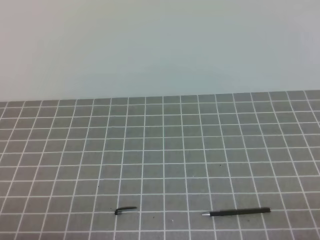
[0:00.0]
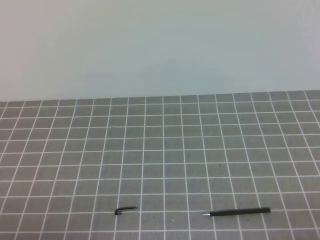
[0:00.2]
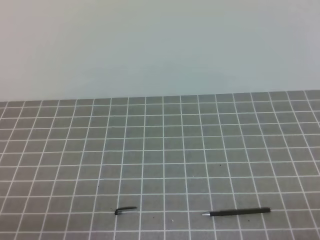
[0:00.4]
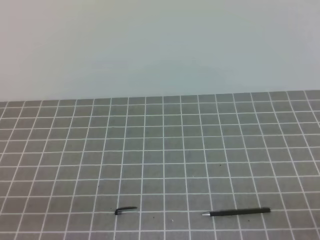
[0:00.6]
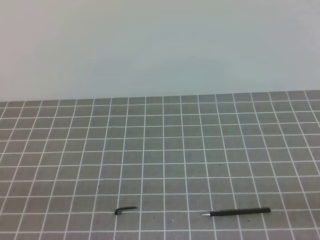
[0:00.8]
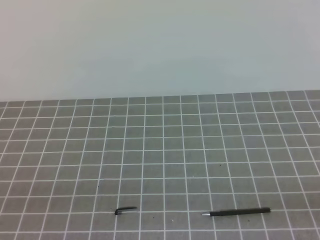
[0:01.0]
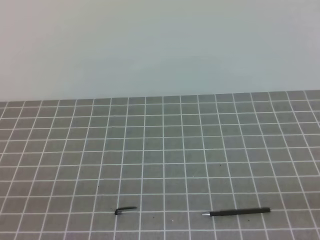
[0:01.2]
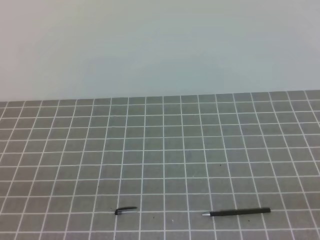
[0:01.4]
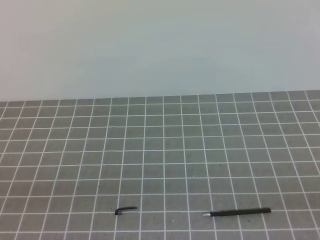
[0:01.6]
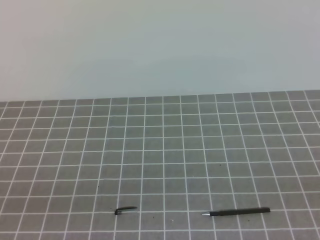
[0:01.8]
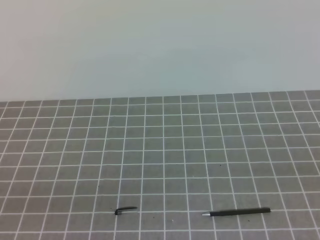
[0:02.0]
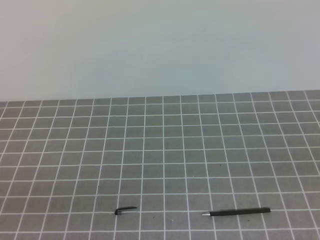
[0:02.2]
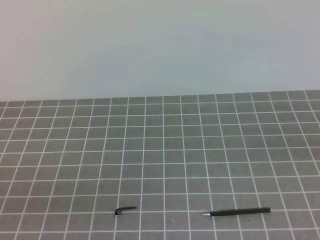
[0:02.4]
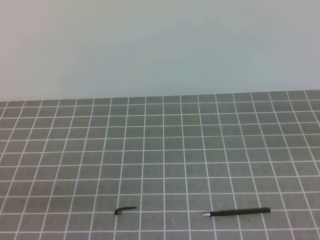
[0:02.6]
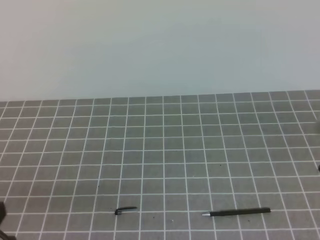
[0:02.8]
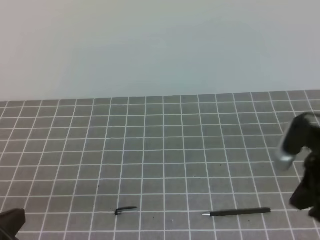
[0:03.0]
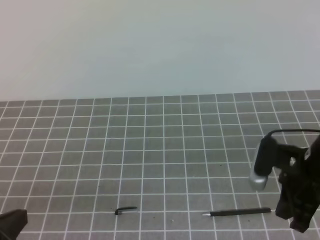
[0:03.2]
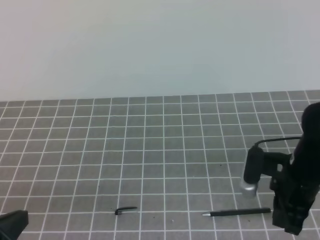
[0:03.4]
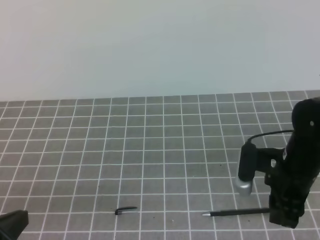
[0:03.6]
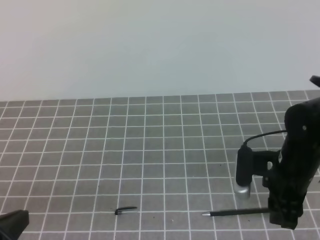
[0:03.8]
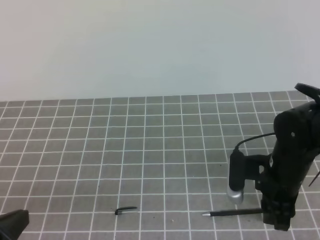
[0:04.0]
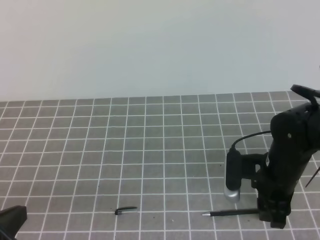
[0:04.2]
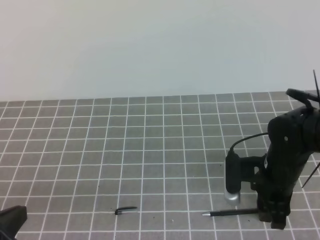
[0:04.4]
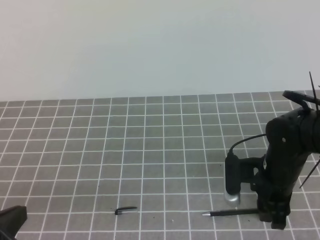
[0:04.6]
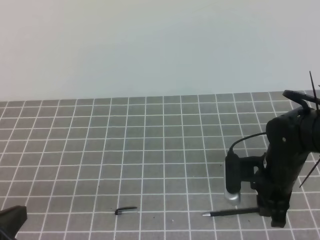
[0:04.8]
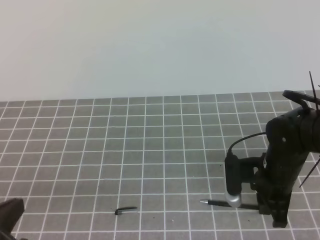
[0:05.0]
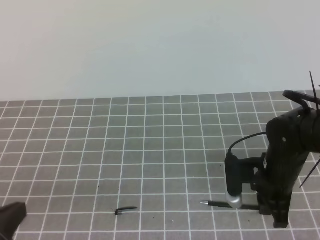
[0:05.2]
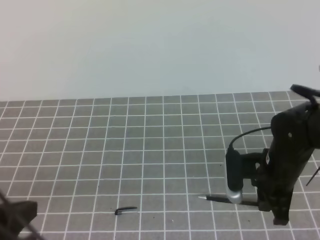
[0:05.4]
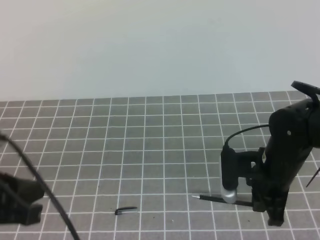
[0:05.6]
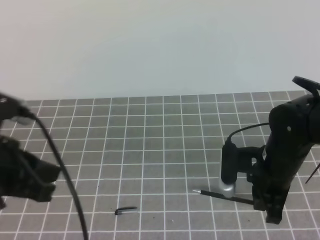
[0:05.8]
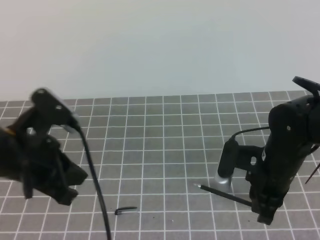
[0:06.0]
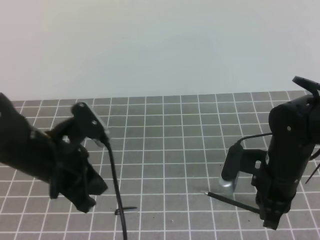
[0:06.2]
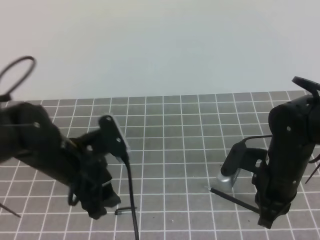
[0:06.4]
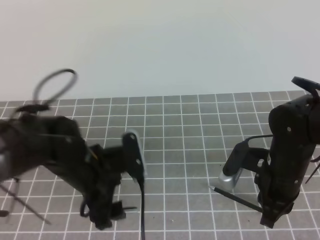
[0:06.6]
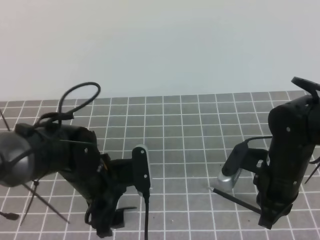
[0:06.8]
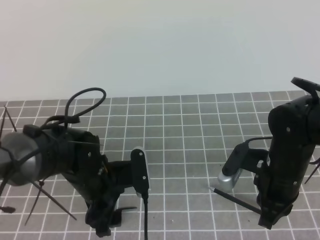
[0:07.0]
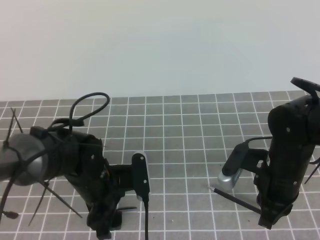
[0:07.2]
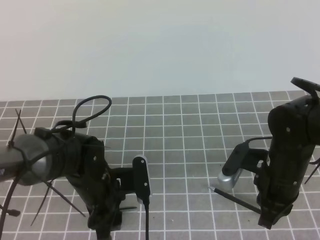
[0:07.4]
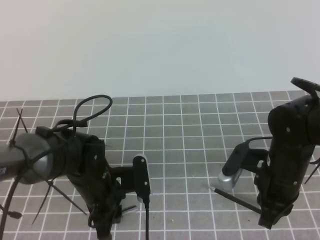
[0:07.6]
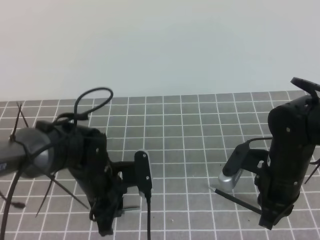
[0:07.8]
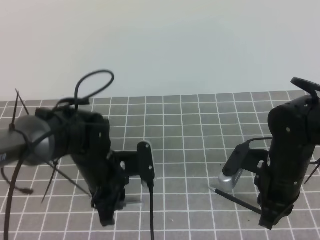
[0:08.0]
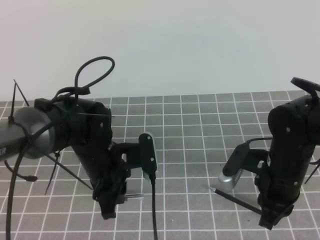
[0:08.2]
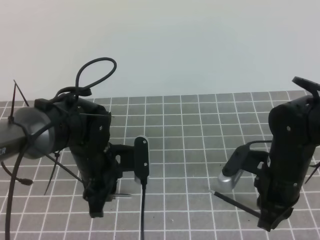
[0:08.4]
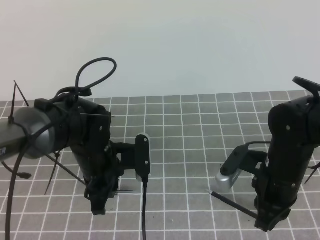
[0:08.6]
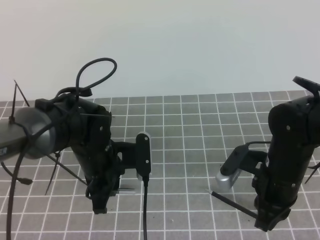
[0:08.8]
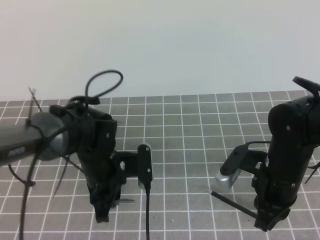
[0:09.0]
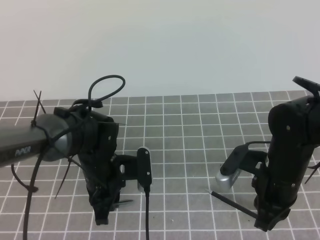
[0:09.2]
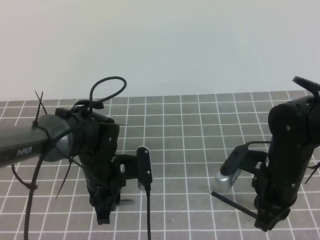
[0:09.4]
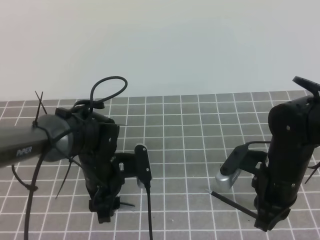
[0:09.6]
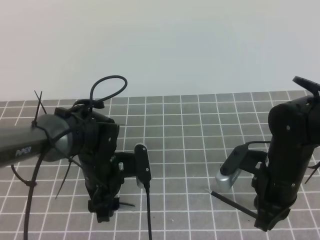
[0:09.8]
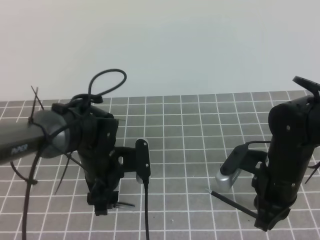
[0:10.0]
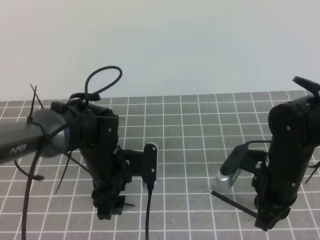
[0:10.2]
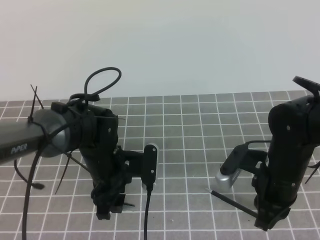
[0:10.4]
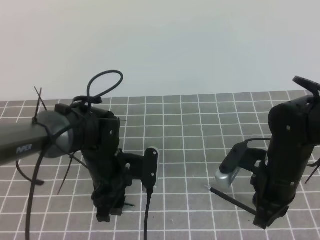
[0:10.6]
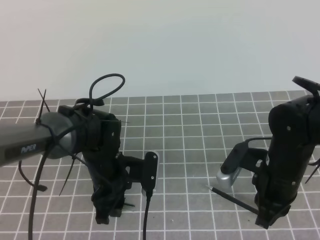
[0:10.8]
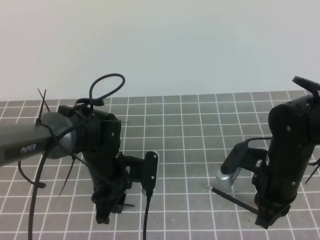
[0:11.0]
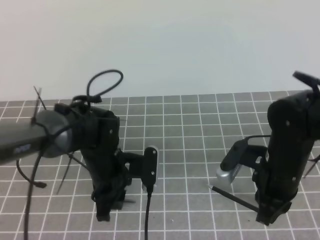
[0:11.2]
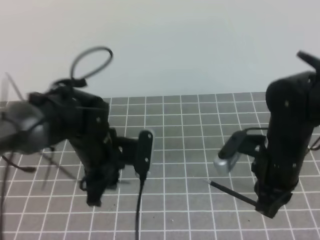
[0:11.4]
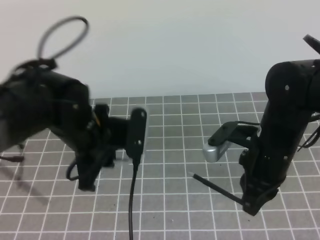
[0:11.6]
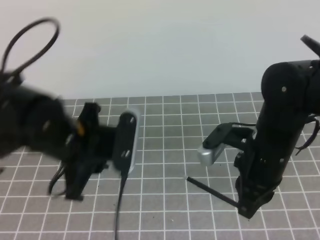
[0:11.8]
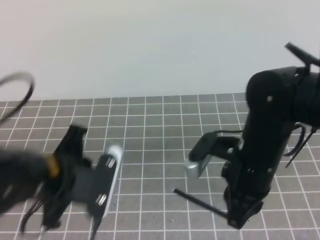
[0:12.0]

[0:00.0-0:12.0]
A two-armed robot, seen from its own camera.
Task of the whole recording: on the grey tablecloth, hold the pen cap in one hand and the pen in the other, then cover the pen cap.
0:01.6 to 0:03.0: The left gripper heads forward, covering approximately 5 cm. Meanwhile the right gripper shifts roughly 25 cm forward.
0:03.0 to 0:04.4: The right gripper goes approximately 10 cm downward and to the left, and opens.
0:04.4 to 0:06.0: The right gripper closes up. Meanwhile the left gripper goes about 10 cm forward.
0:06.0 to 0:07.6: The left gripper heads downward and to the right, covering roughly 15 cm, and opens up.
0:07.6 to 0:09.0: The grippers make only small movements.
0:09.0 to 0:10.4: The left gripper opens up.
0:10.4 to 0:12.0: The right gripper travels upward by some 5 cm. The left gripper moves upward, backward and to the left, approximately 15 cm, and closes up.

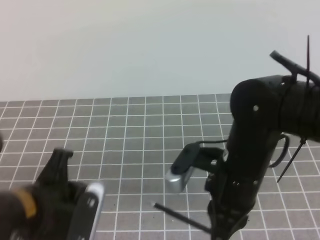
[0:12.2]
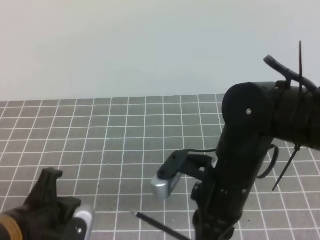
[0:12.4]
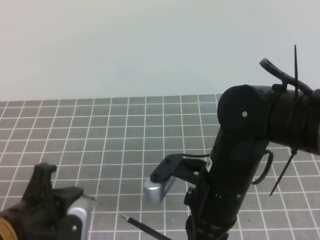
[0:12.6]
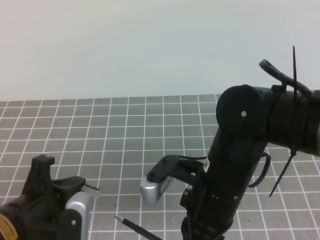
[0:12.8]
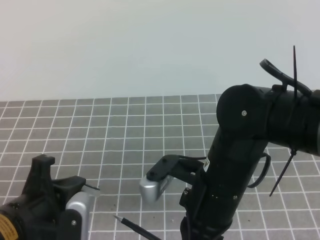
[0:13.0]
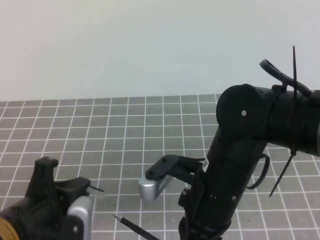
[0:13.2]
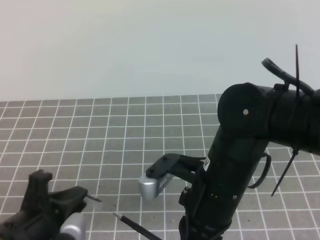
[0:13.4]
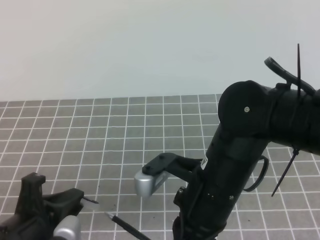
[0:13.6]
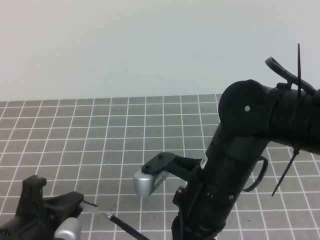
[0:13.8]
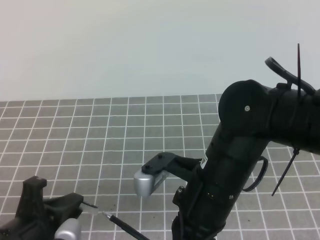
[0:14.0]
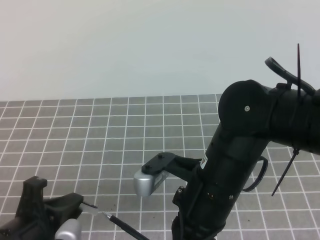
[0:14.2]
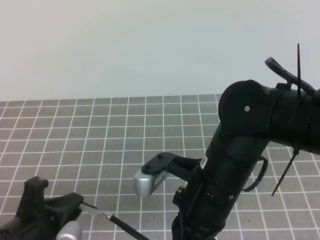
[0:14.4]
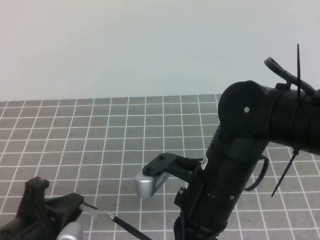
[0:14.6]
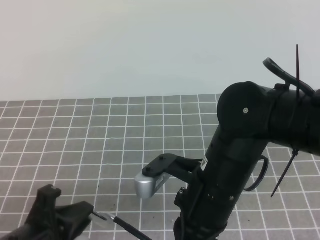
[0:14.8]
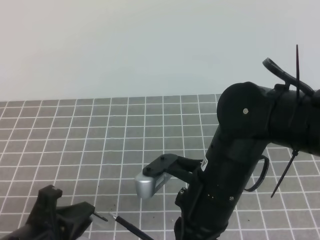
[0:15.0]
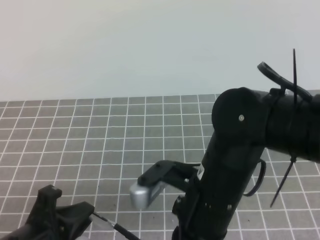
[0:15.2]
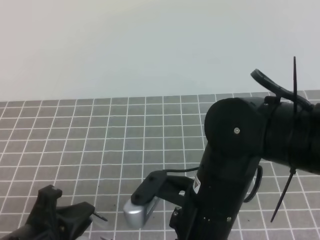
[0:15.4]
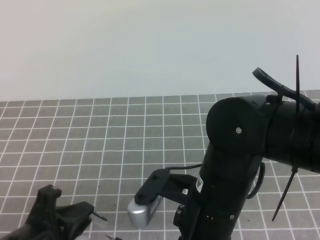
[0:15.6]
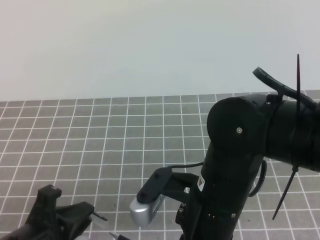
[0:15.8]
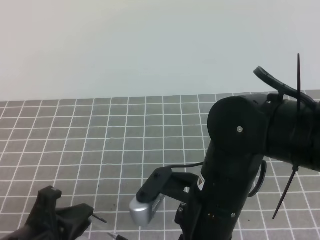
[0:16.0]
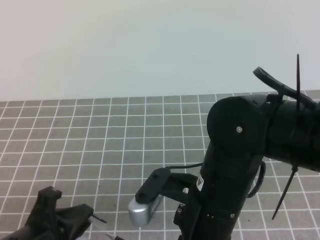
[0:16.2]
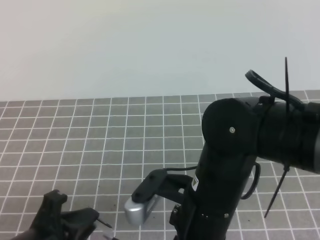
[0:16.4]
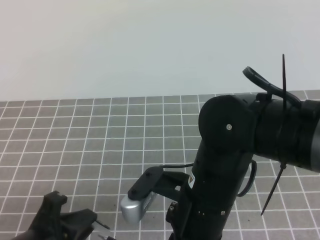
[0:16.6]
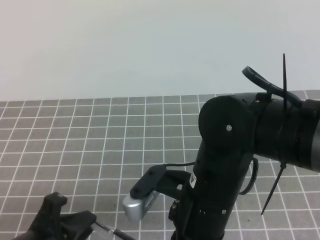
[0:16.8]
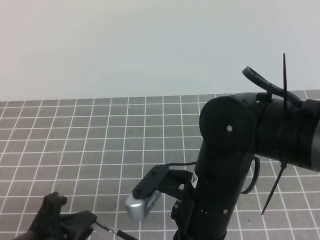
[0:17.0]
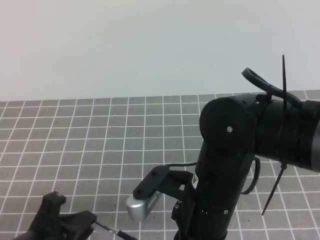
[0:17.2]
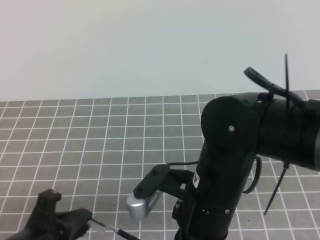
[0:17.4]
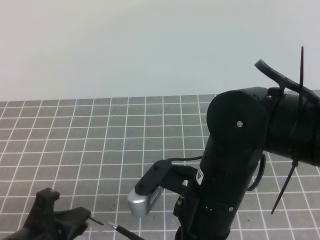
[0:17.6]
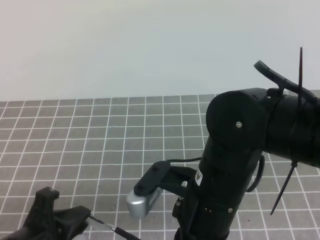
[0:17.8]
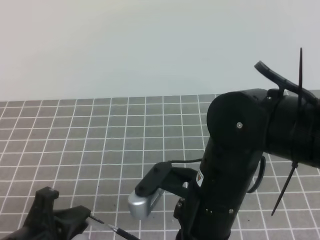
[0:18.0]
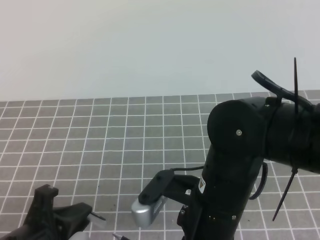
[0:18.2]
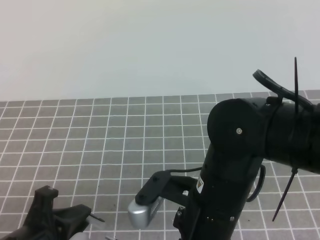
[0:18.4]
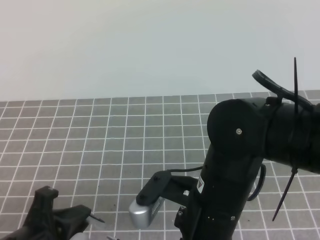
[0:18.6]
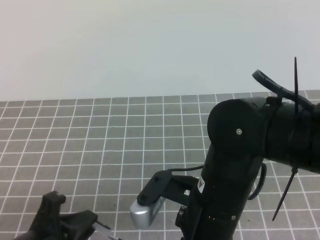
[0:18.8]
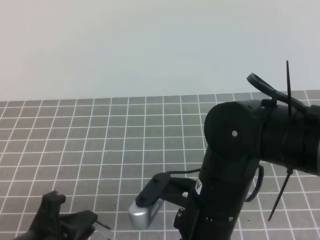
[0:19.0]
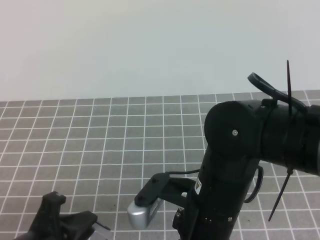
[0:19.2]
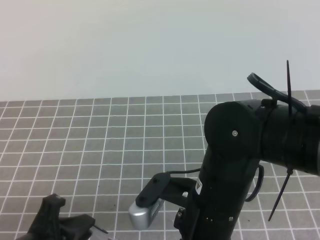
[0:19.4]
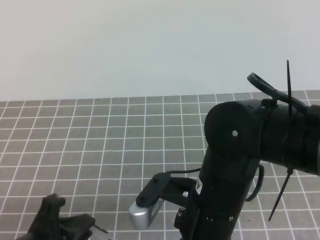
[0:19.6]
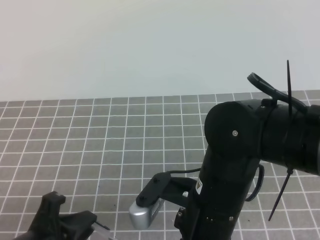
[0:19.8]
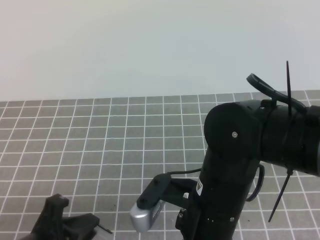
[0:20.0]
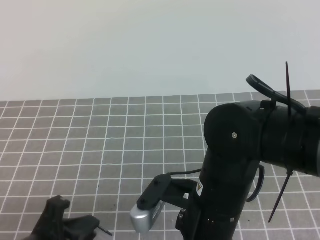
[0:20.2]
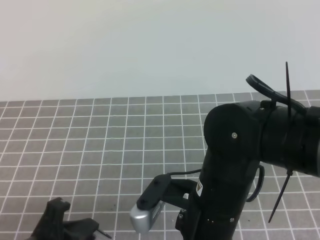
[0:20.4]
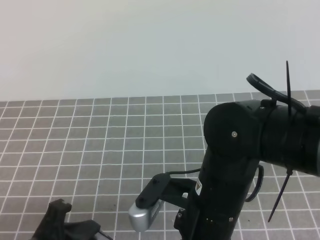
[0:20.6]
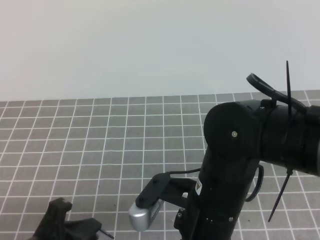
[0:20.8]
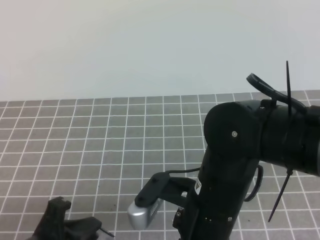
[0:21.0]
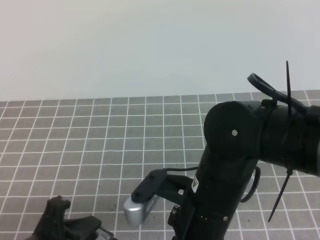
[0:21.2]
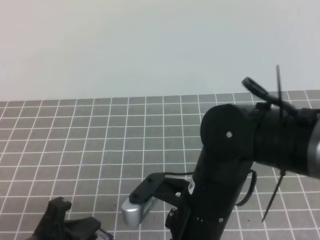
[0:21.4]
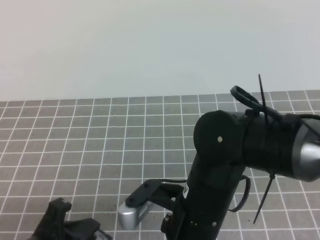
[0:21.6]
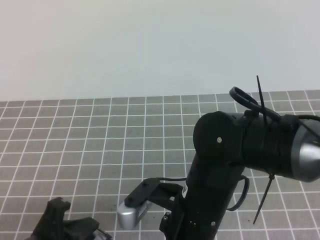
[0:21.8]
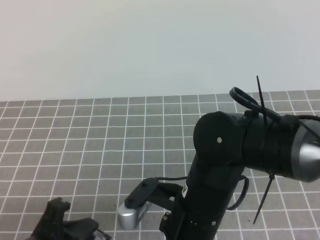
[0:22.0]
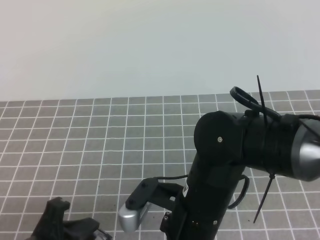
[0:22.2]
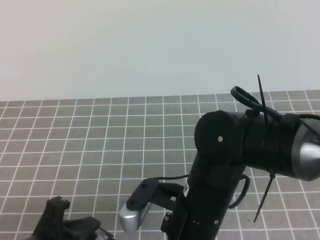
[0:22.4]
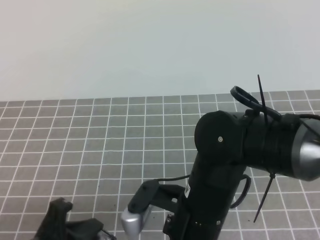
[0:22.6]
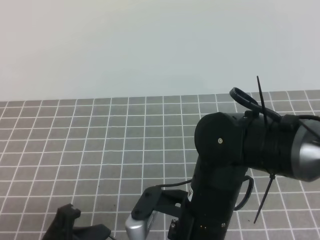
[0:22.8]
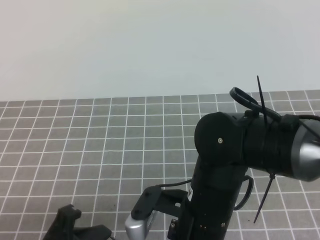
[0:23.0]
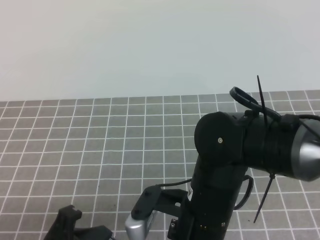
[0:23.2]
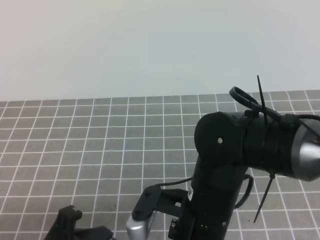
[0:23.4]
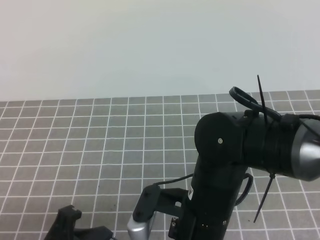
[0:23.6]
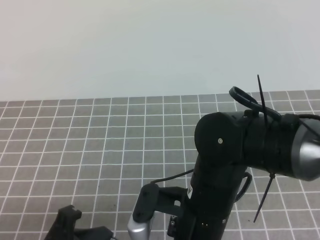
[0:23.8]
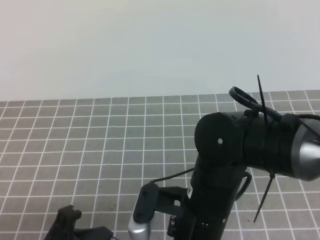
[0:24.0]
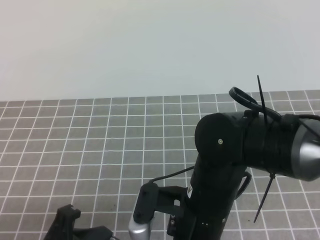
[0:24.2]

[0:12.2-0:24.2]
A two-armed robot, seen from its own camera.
Task of the whole recording: on the grey tablecloth, hold the pen cap in one hand and the pen in the other, then cover the pen cap.
0:12.2 to 0:13.8: The right gripper changes place by about 5 cm. The left gripper goes approximately 5 cm backward.
0:13.8 to 0:16.6: The grippers stay close to where they were, moving slightly.
0:16.6 to 0:19.8: Both grippers stay put.
0:19.8 to 0:24.2: There are only small adjustments of the grippers.
